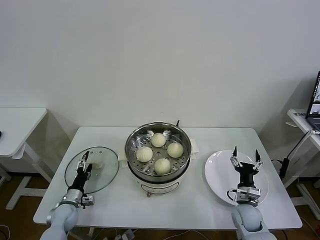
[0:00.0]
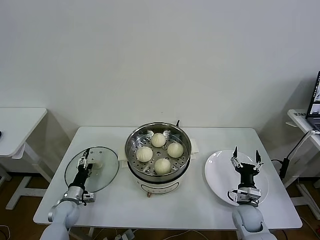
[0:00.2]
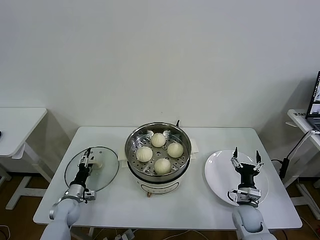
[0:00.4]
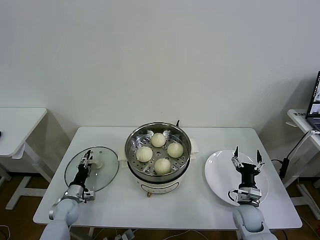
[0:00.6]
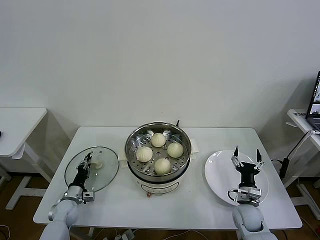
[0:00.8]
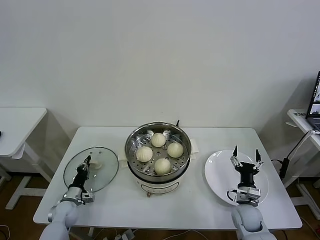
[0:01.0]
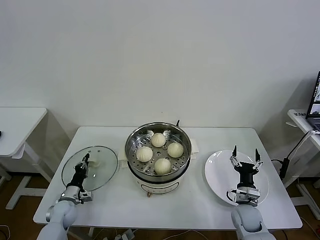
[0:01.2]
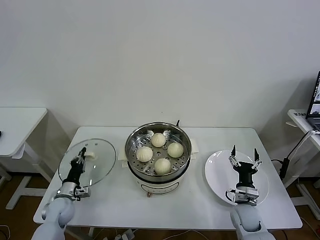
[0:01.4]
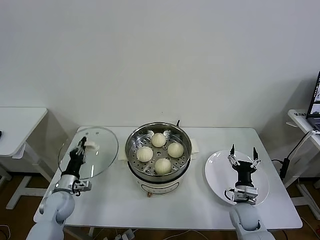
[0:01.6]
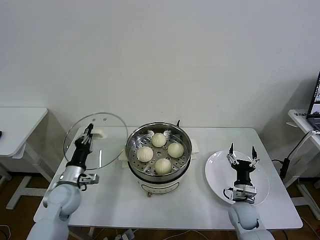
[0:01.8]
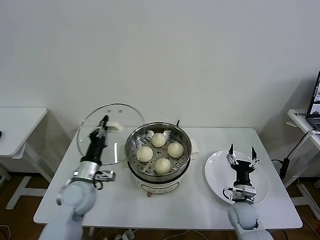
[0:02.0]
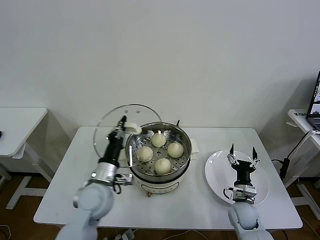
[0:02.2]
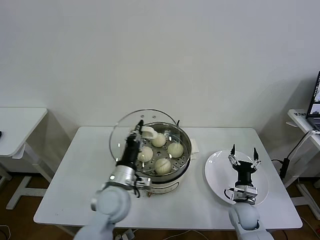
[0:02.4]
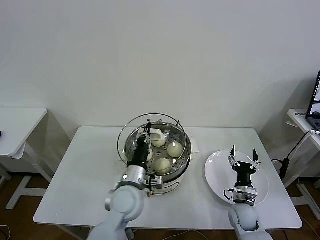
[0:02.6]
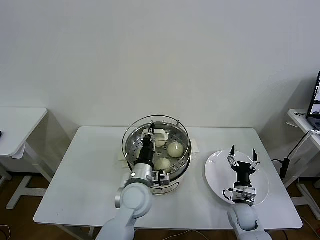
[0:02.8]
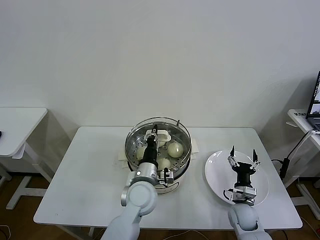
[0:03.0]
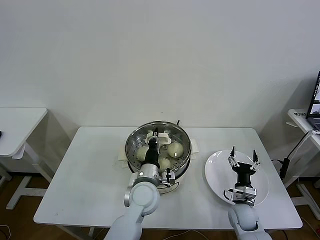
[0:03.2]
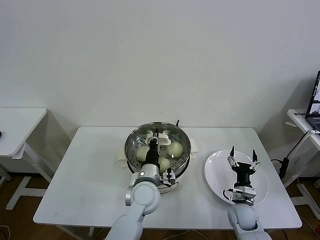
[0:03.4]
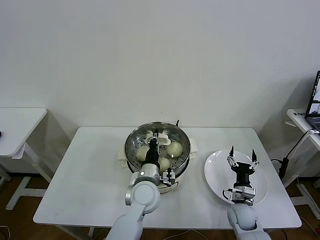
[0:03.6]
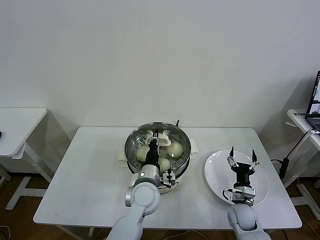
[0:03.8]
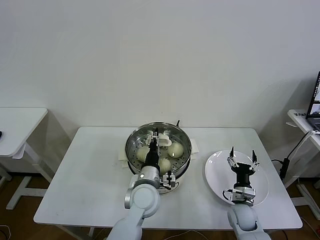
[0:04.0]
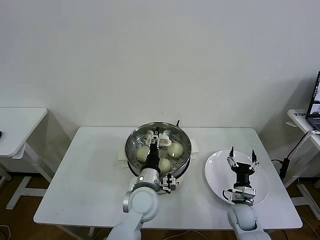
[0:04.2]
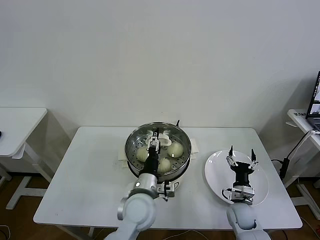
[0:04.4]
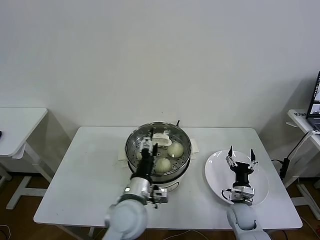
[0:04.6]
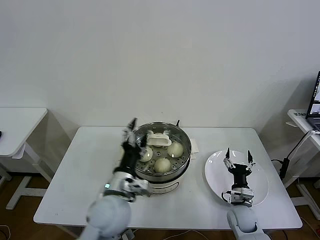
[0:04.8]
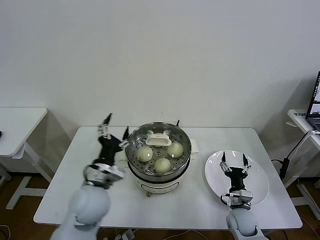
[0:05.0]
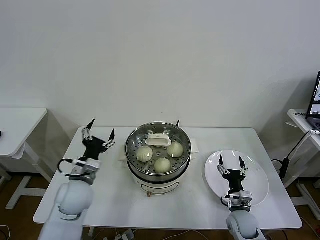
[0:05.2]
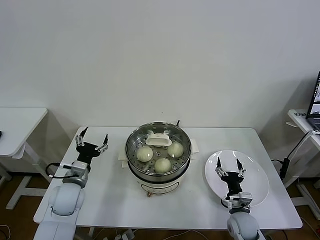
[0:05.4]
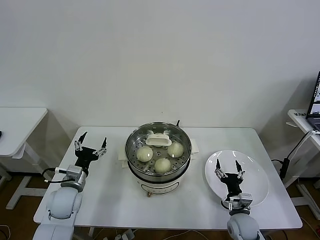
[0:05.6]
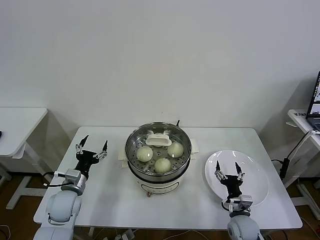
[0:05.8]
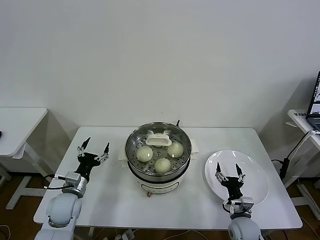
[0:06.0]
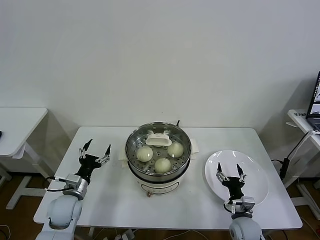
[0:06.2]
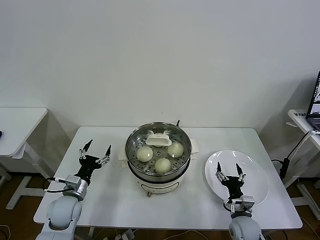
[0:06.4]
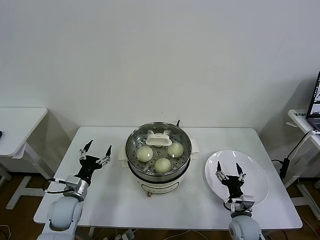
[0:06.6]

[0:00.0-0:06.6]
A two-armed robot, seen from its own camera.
Task of the whole recording: take steamed baozi put them in steamer then cover it.
Step, 0:01.2 to 0:03.8: Place the pot lid on the steamer with left gripper.
0:00.0 to 0:01.6: The left gripper shifts approximately 10 cm upward, and closes its fingers.
0:01.6 to 0:03.2: The left gripper goes roughly 30 cm to the right.
0:03.2 to 0:05.0: The left gripper moves to the left and upward, some 15 cm, and opens.
0:05.0 to 0:06.6: The left gripper shifts approximately 20 cm to the left and downward.
